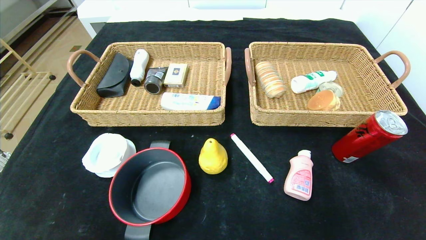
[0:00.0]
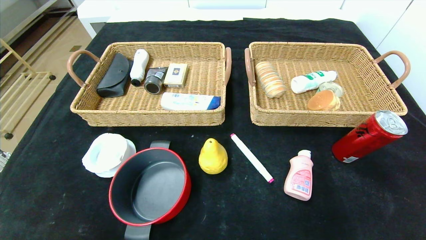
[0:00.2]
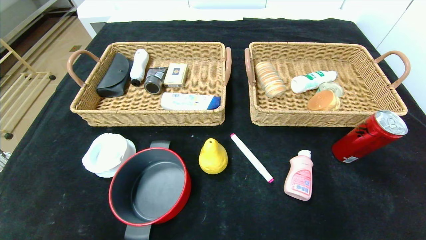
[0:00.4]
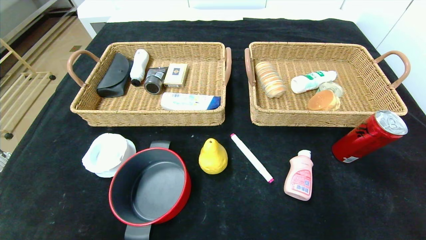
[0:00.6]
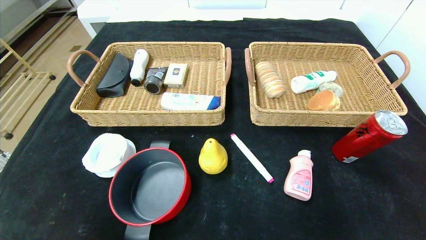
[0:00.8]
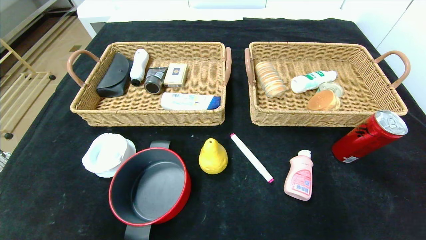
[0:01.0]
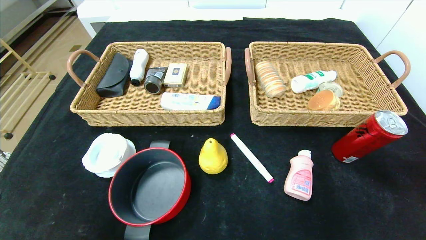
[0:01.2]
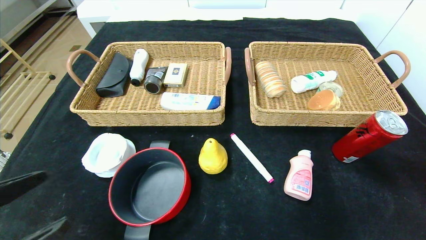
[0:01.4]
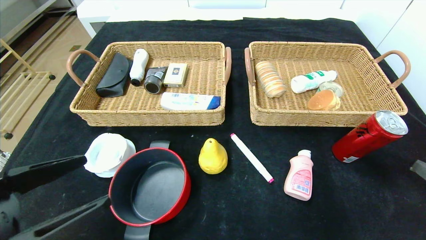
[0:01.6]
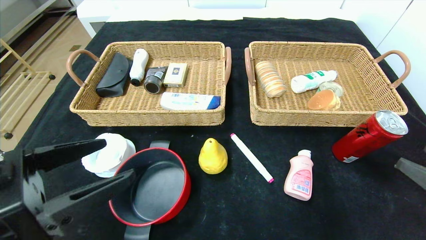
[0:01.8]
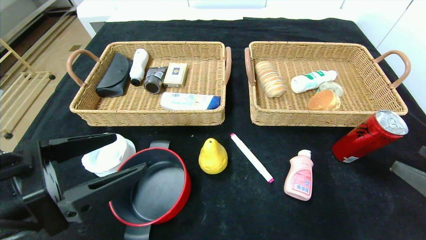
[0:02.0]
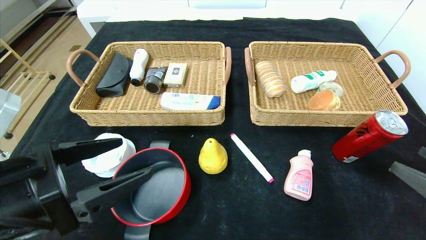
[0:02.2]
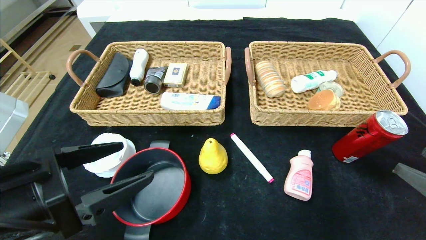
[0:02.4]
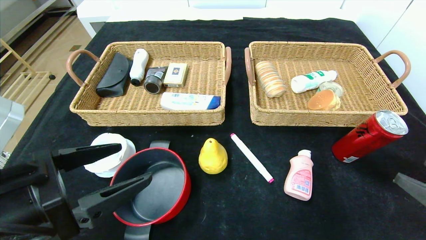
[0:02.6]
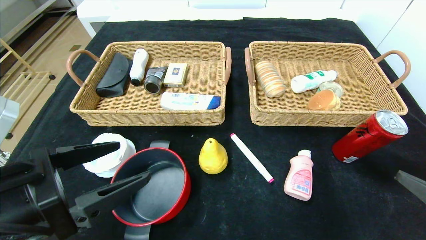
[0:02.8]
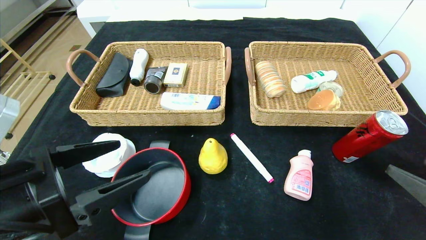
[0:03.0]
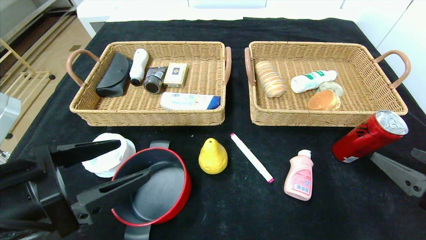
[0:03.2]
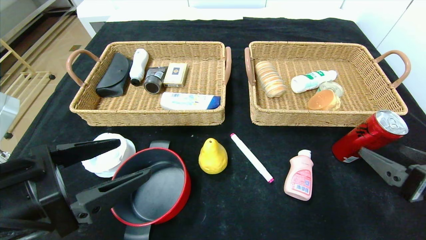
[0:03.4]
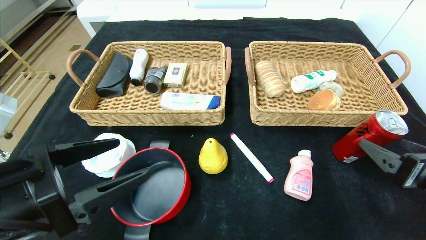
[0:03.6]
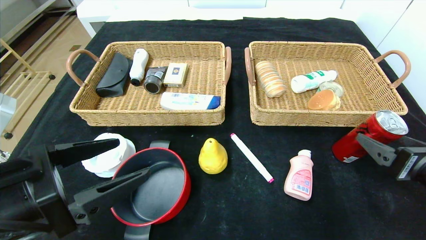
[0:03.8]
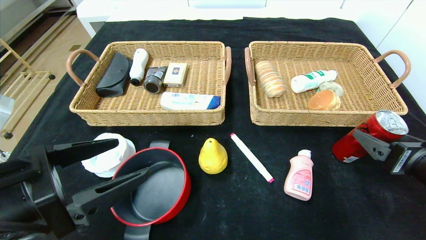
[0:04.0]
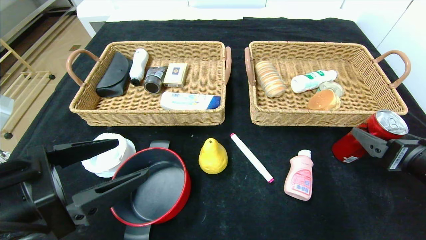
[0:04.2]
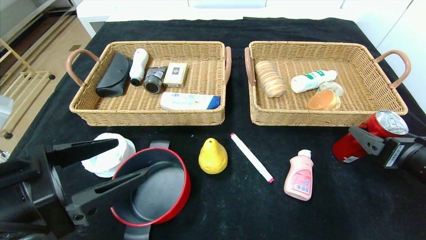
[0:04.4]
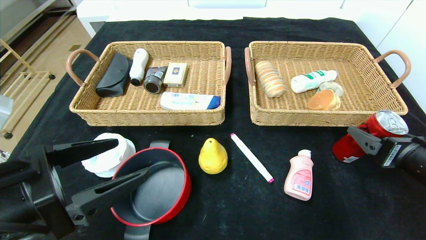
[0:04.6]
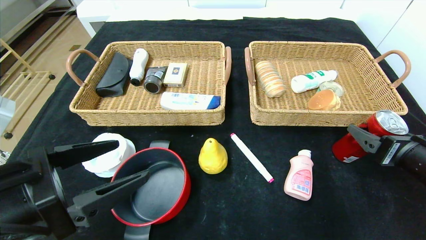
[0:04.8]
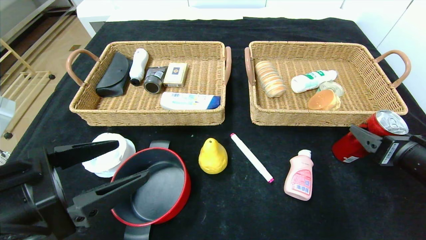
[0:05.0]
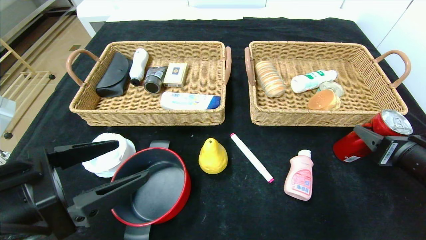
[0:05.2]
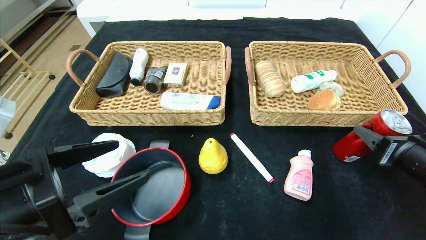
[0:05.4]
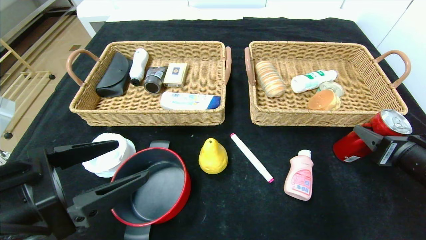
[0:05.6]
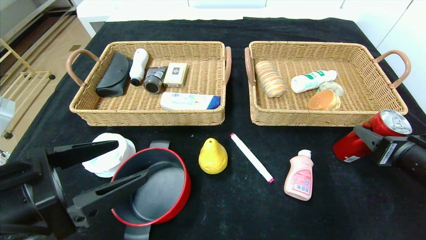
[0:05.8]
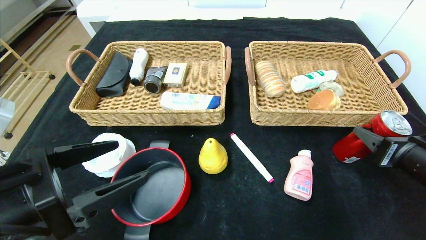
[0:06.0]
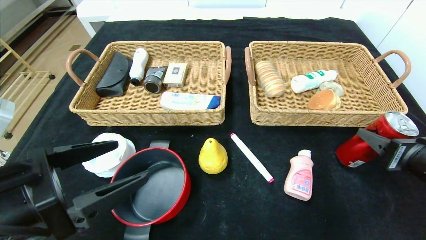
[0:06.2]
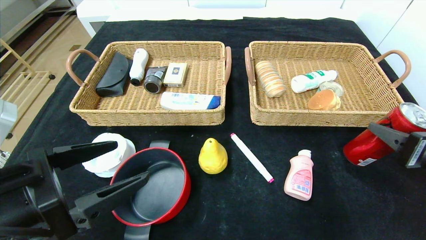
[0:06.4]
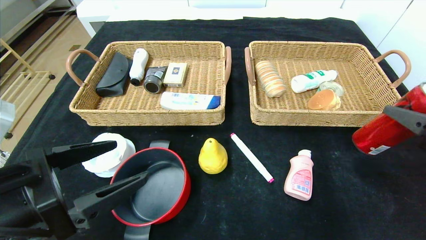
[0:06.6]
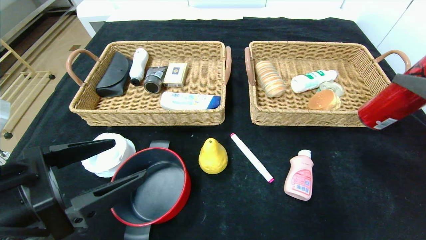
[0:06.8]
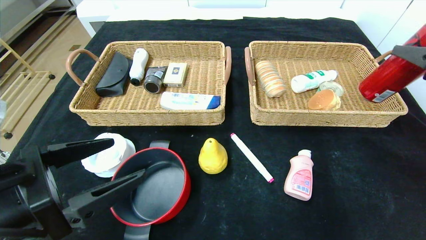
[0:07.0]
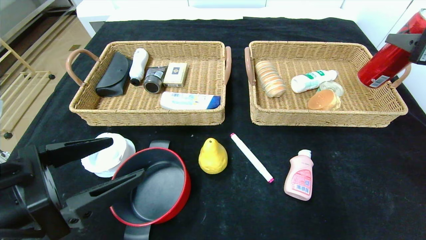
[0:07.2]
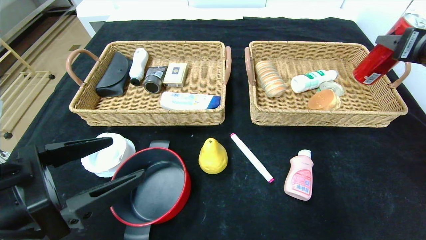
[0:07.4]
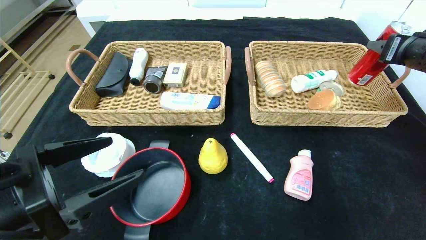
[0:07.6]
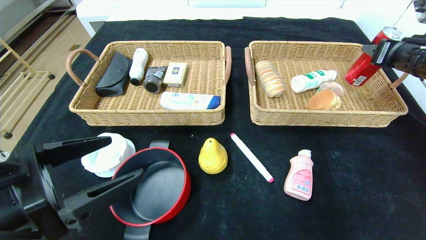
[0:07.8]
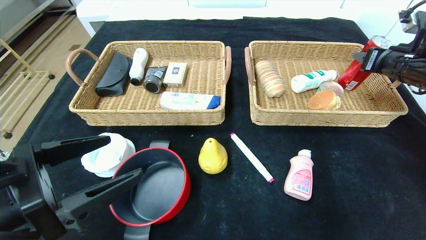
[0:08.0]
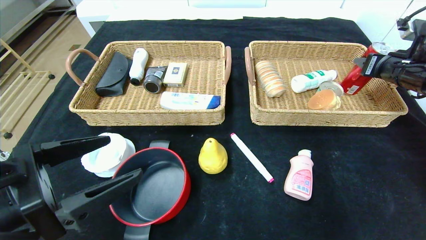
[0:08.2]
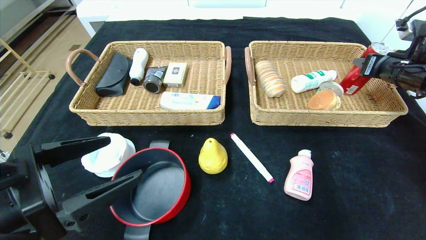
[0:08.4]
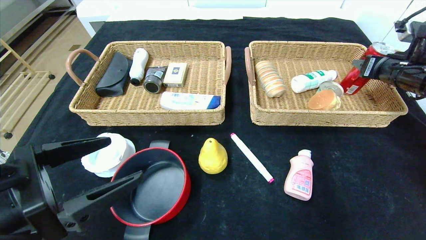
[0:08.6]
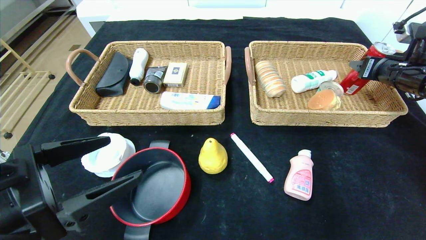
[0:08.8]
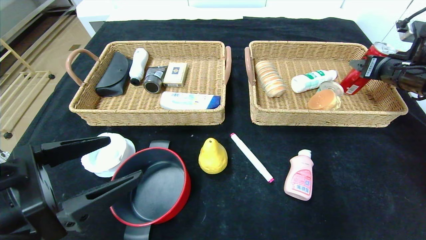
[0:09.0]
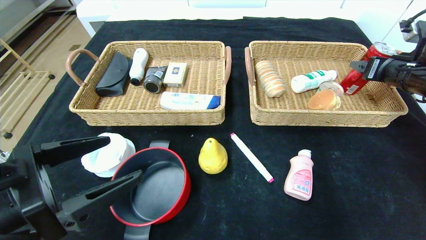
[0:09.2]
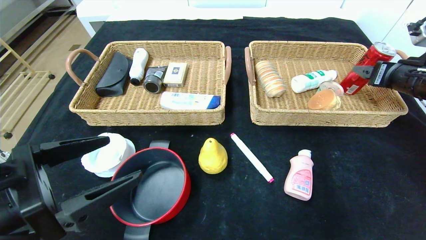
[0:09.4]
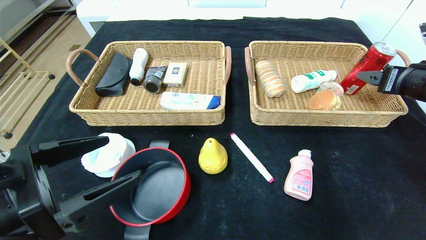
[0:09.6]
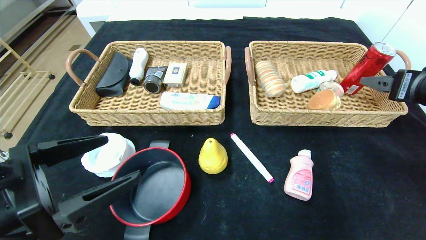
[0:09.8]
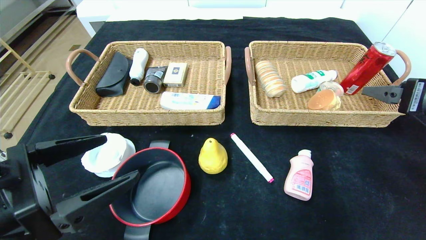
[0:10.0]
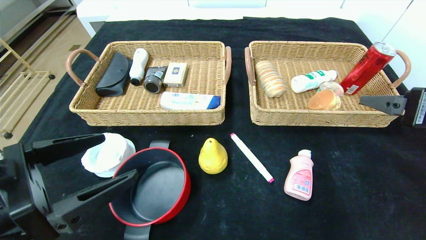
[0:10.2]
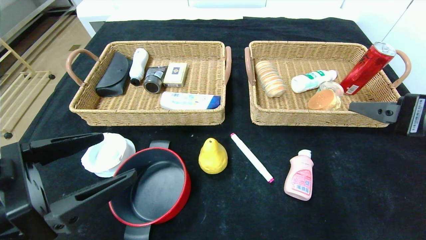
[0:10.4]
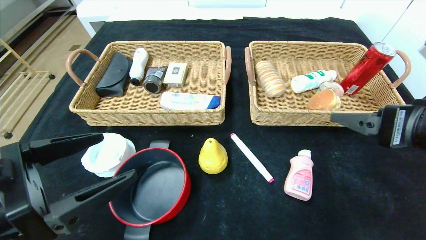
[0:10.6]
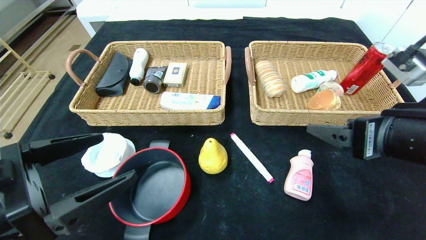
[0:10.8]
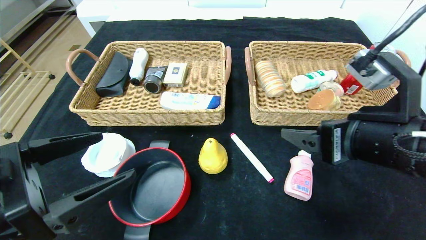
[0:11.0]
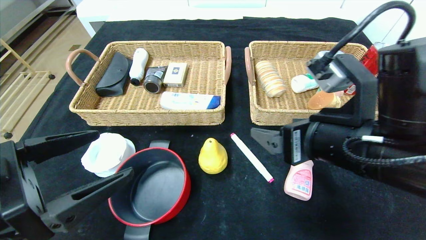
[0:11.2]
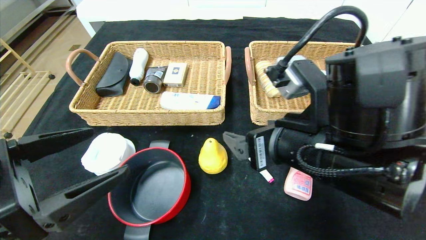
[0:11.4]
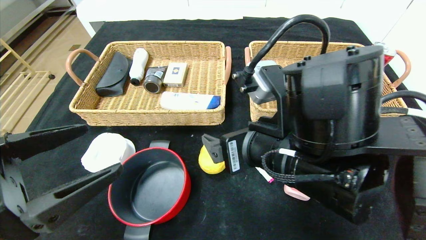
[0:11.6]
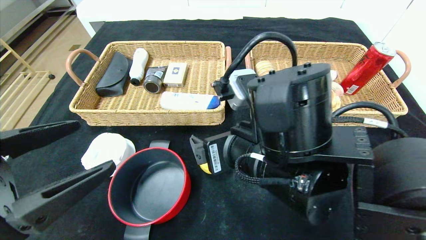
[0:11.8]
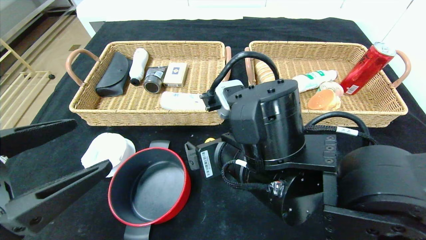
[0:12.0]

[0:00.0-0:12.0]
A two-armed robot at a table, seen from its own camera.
Step, 0:00.0 to 0:09.4: Grasp the canned cola and put it in the right basket.
0:00.0 to 0:01.6: Both grippers move forward, approximately 10 cm.
0:01.6 to 0:03.0: There are only small adjustments of the grippers.
0:03.0 to 0:04.4: The right gripper travels forward by approximately 10 cm.
0:04.4 to 0:06.0: The right gripper closes up.
0:06.0 to 0:07.6: The right gripper is displaced upward and forward by about 20 cm.
0:07.6 to 0:09.0: The right gripper is displaced forward by some 5 cm.
0:09.0 to 0:10.4: The right gripper goes approximately 20 cm backward and to the left.
0:10.4 to 0:12.0: The right gripper goes approximately 25 cm to the left.

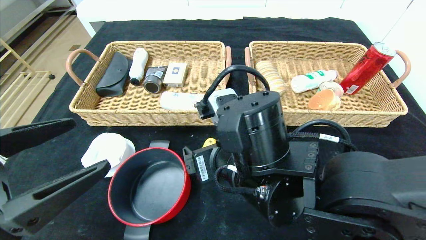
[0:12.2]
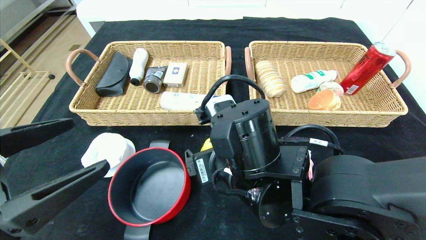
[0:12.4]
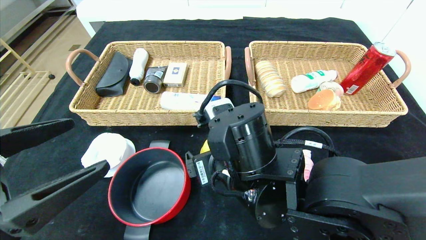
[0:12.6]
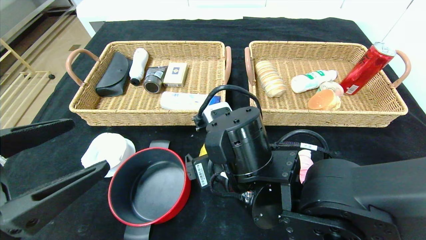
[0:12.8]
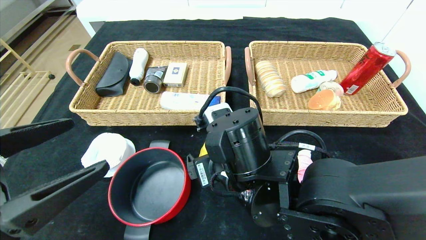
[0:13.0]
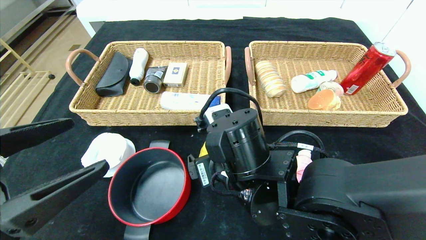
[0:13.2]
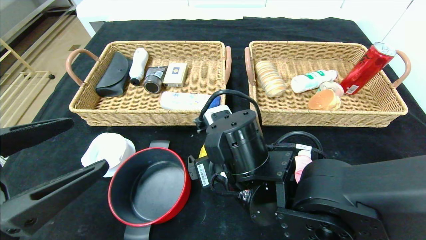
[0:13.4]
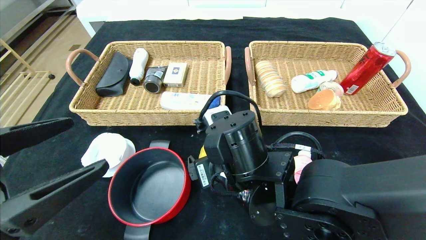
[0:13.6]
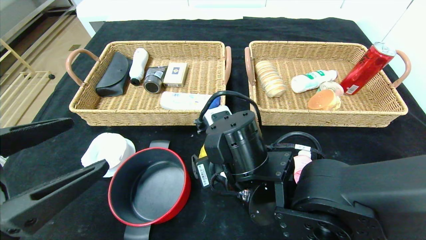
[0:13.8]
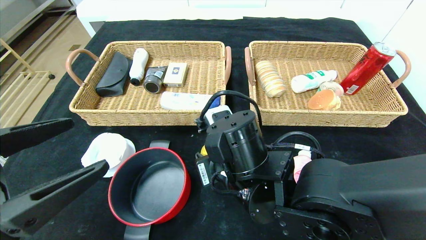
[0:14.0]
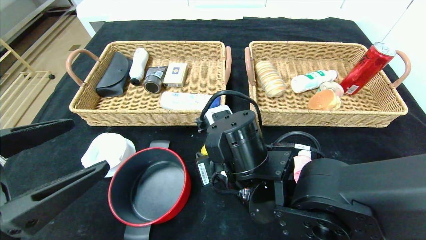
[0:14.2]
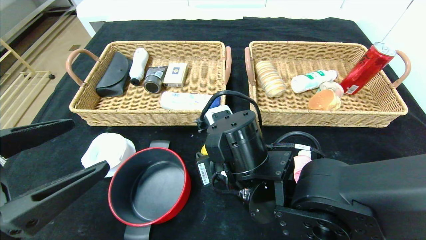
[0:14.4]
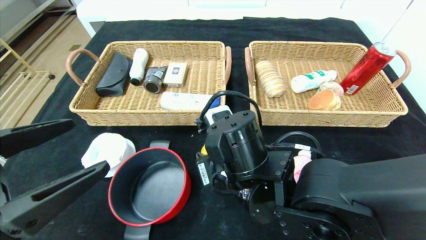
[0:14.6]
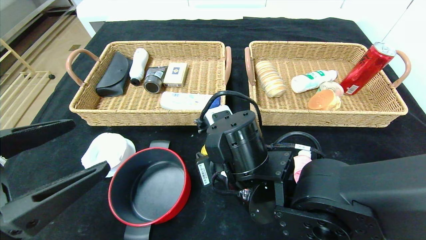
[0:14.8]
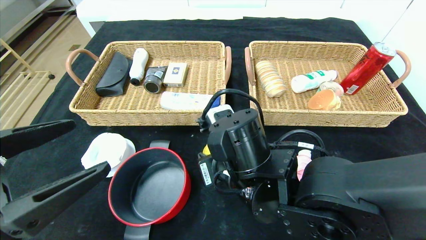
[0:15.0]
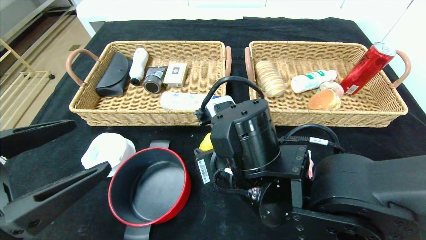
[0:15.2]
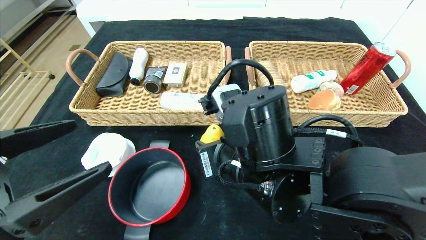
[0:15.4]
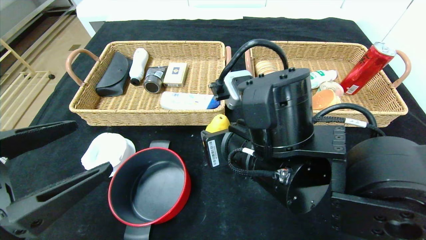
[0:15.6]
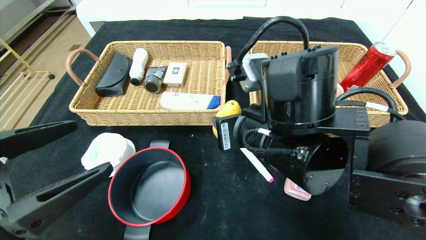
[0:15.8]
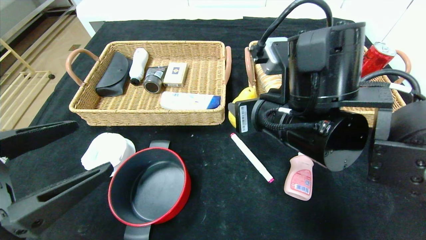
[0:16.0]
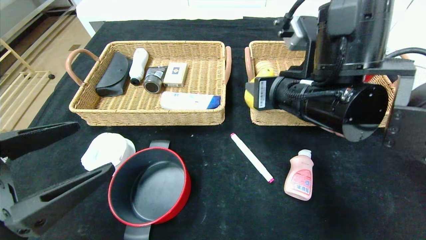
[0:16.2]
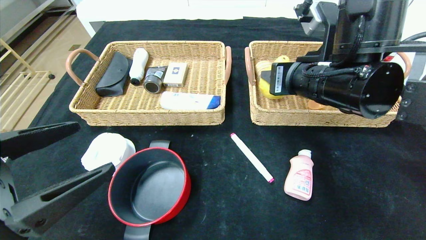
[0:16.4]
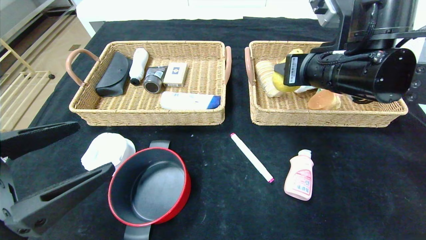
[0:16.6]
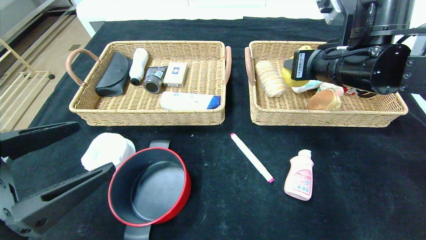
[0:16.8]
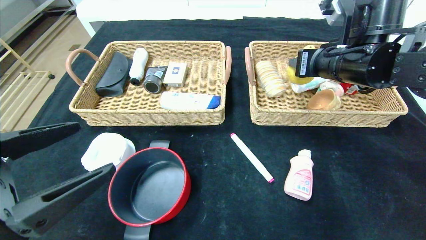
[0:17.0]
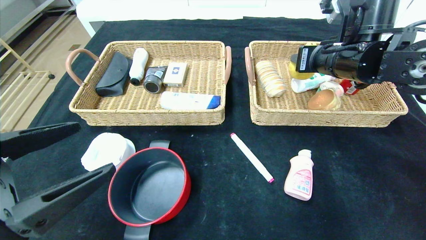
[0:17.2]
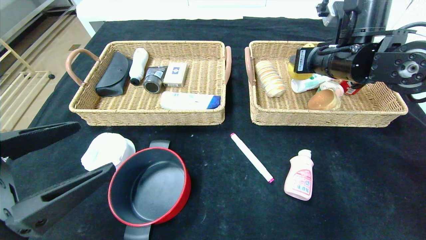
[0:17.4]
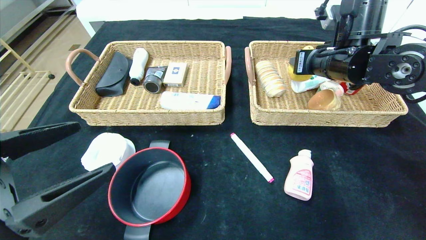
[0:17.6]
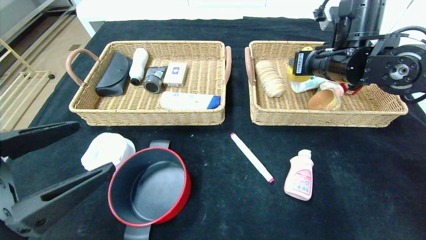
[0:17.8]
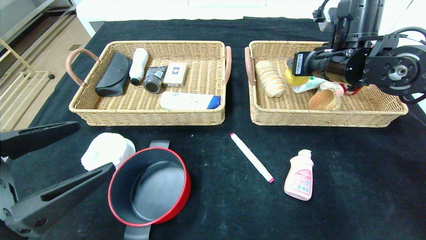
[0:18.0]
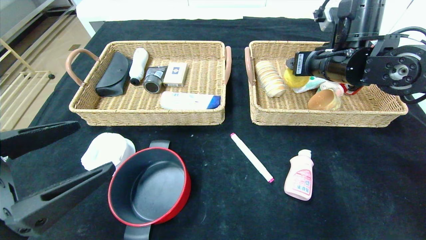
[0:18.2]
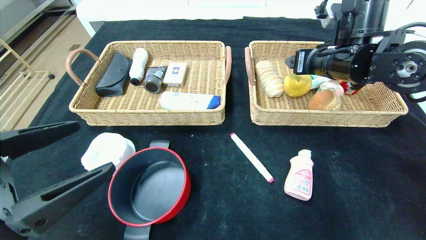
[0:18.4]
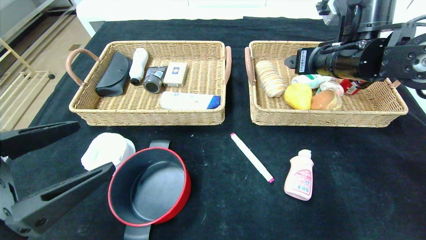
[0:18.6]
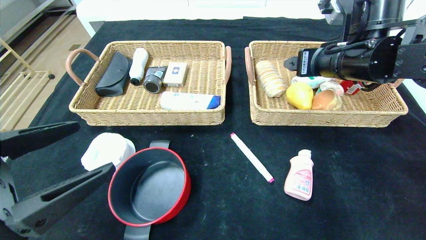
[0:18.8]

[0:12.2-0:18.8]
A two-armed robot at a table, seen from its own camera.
Step, 0:12.2 to 0:18.4: Grasp the pear and put it in the right basket.
0:12.2 to 0:15.4: There are only small adjustments of the grippers.
0:15.4 to 0:17.2: The right gripper travels to the right, forward and upward by roughly 25 cm.
0:17.2 to 0:18.8: The right gripper opens up.
